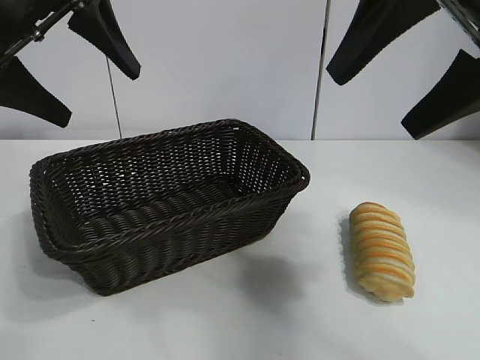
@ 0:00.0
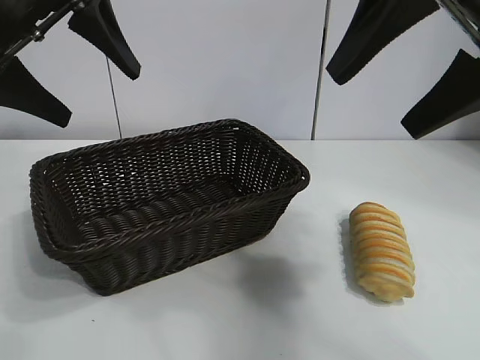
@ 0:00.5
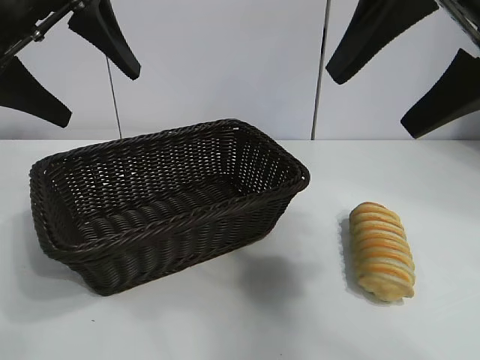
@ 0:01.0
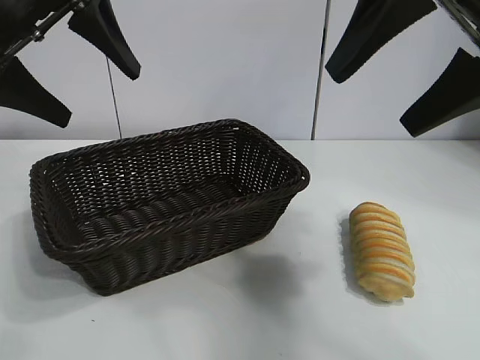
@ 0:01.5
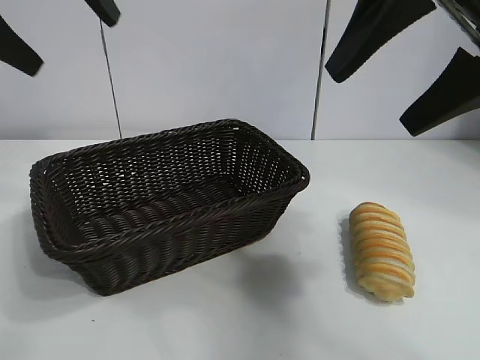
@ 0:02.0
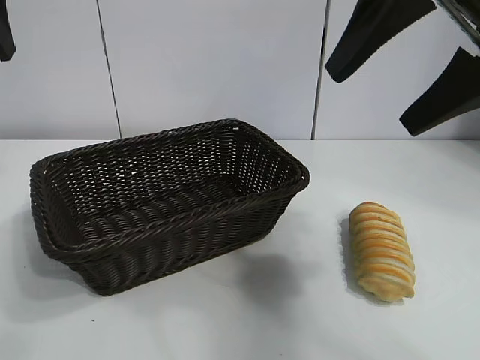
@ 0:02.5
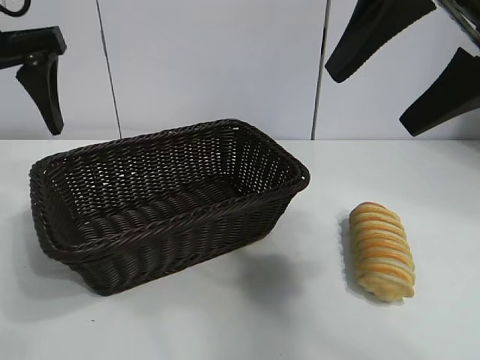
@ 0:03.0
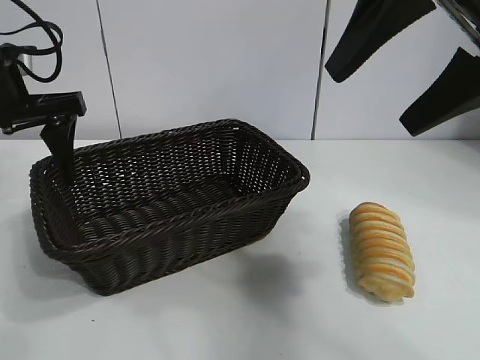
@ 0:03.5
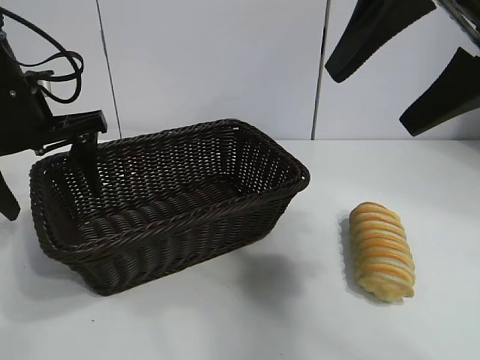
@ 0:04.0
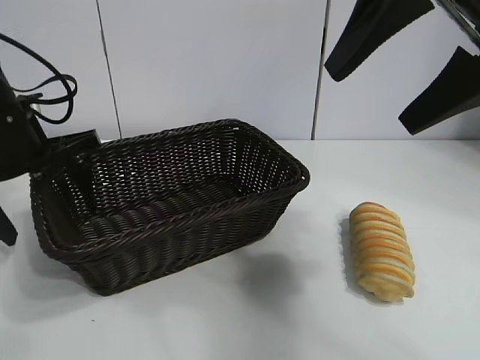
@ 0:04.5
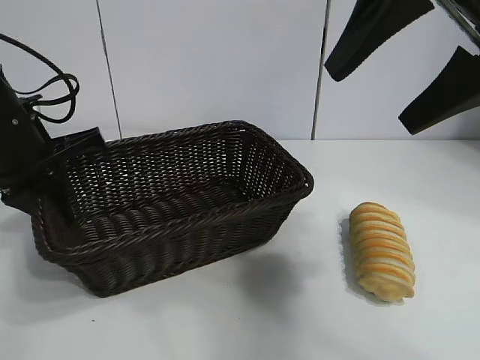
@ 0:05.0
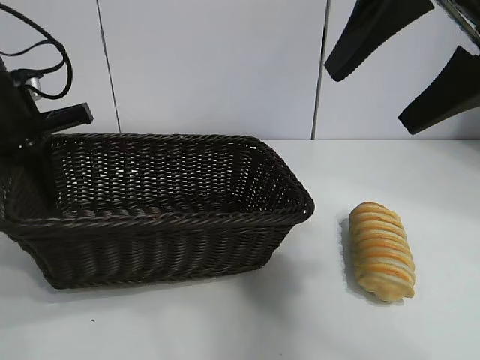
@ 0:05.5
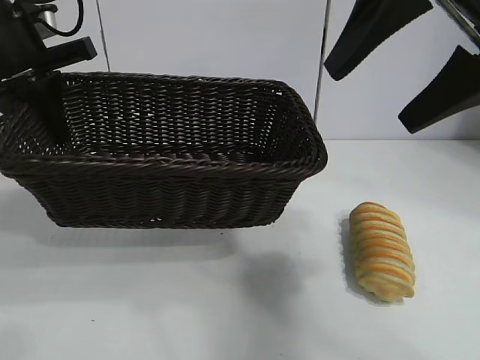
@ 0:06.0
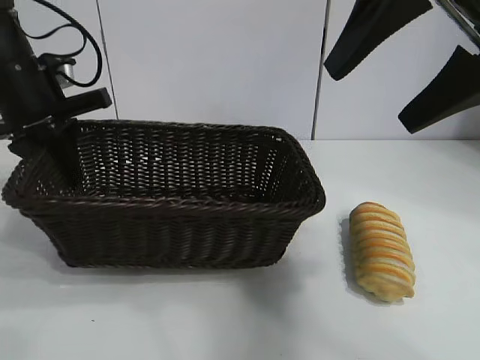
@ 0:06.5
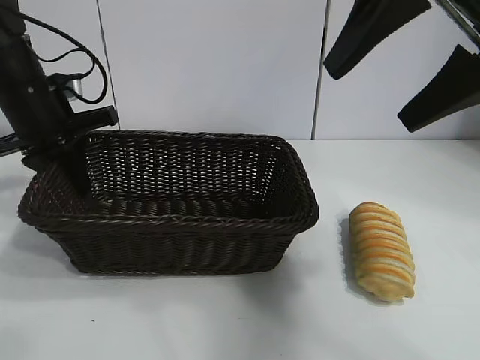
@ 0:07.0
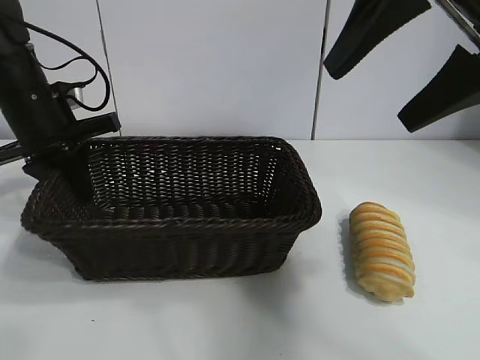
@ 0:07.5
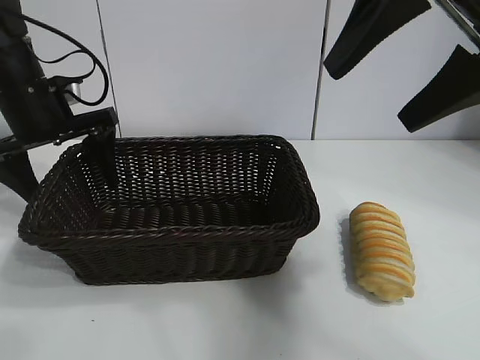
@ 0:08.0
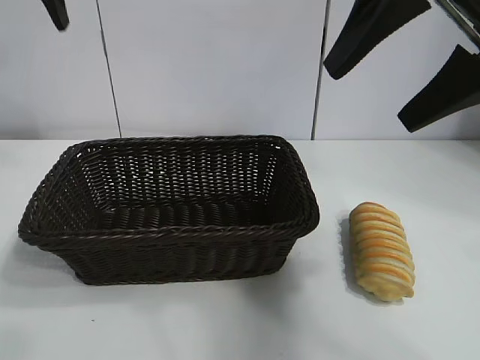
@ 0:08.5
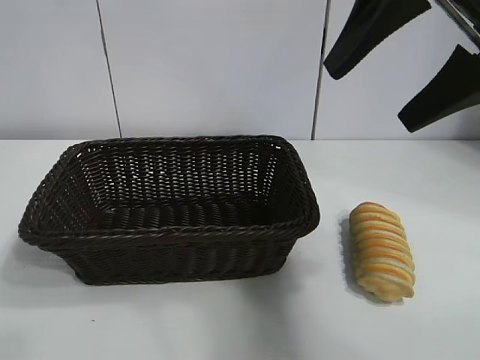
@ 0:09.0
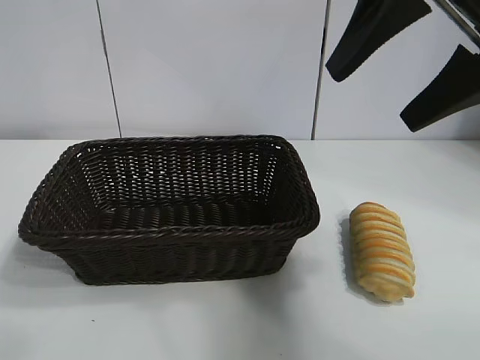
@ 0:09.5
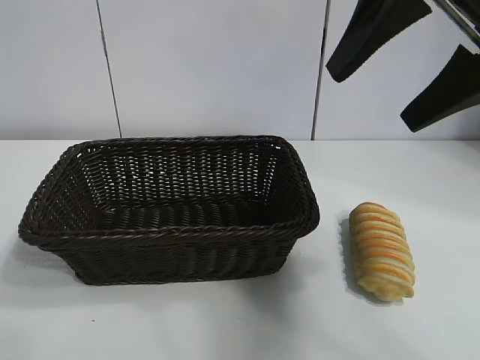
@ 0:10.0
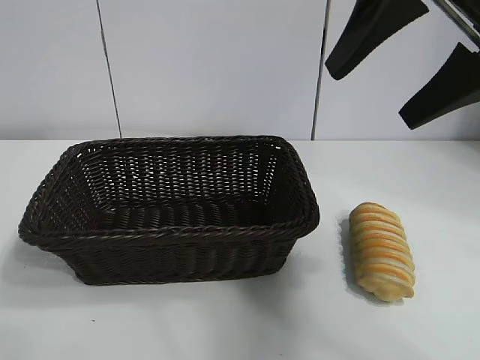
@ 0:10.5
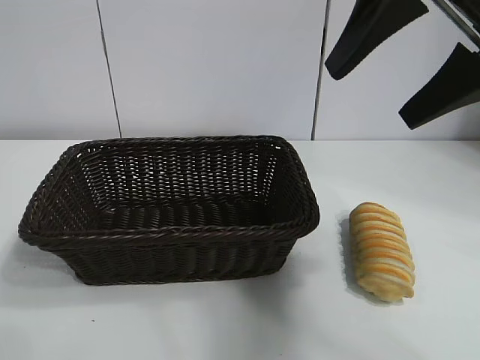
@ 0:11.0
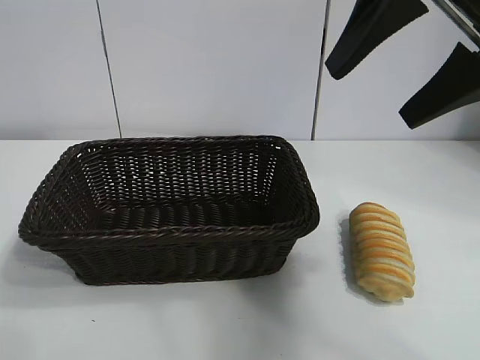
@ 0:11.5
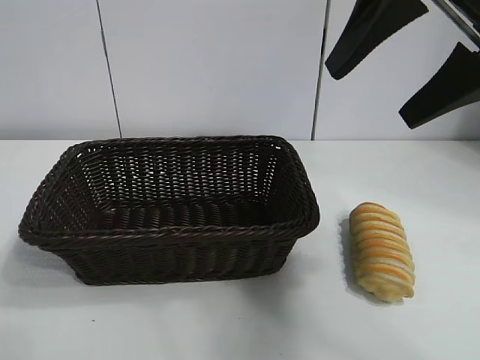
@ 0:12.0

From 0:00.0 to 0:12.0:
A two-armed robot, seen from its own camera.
Task of the whole recording: pick up the long bread and put it into the basket.
Step, from 0:02.0 to 0:04.5: Grasp the basket with the left gripper.
Step, from 0:05.0 to 0:07.5: Place the basket in the center of the table with the left gripper.

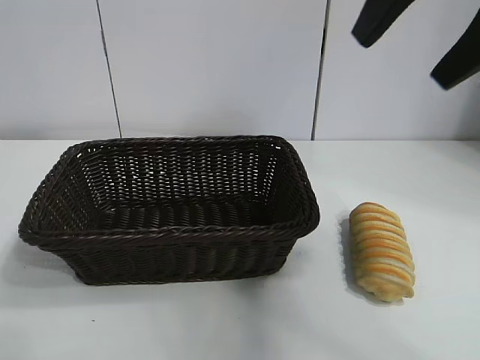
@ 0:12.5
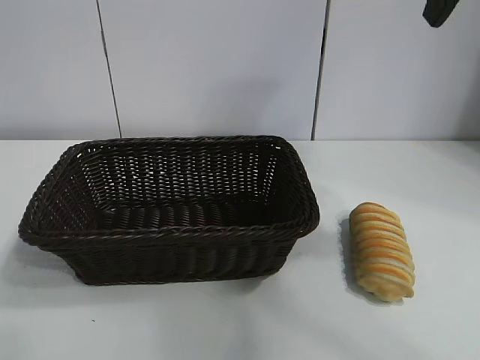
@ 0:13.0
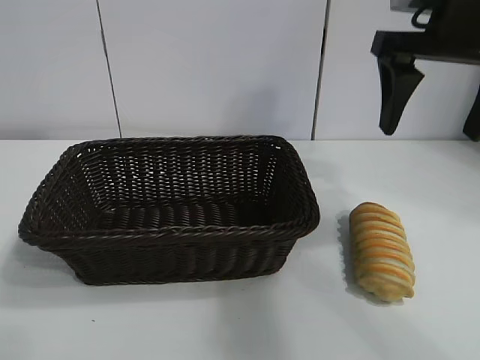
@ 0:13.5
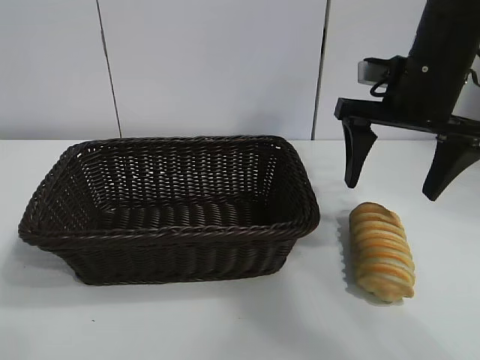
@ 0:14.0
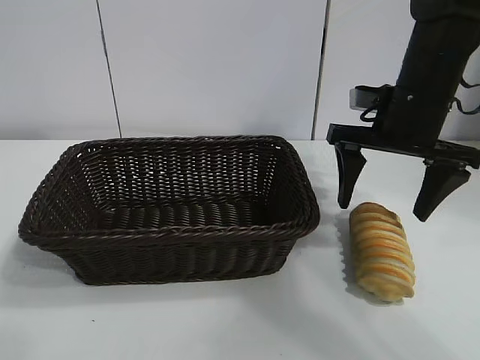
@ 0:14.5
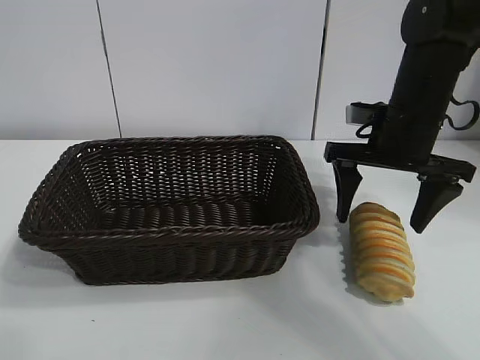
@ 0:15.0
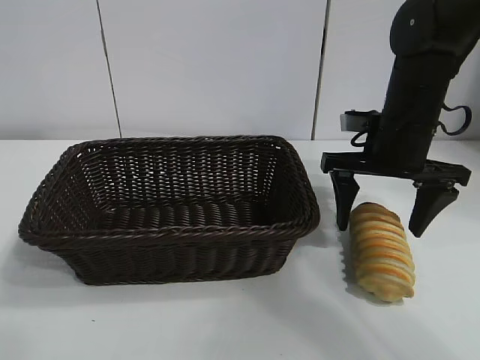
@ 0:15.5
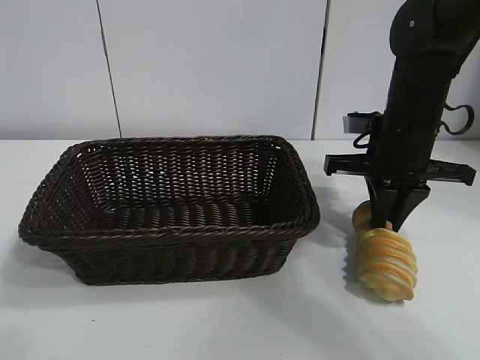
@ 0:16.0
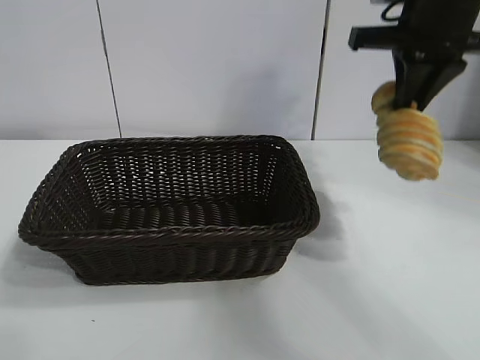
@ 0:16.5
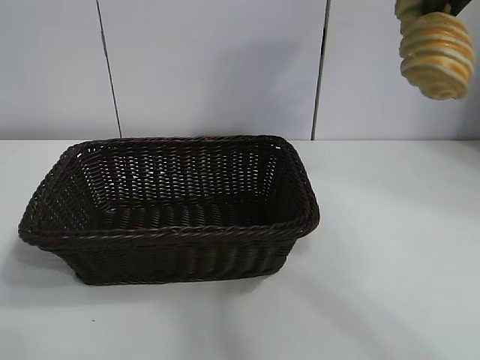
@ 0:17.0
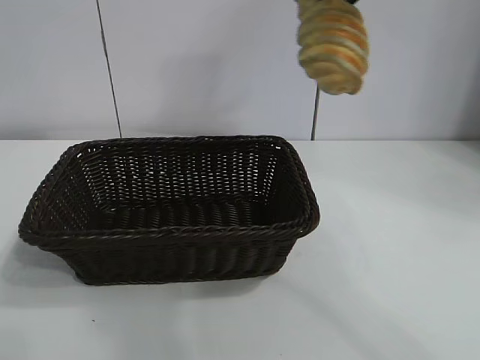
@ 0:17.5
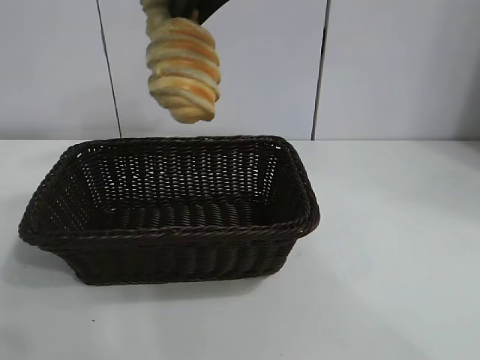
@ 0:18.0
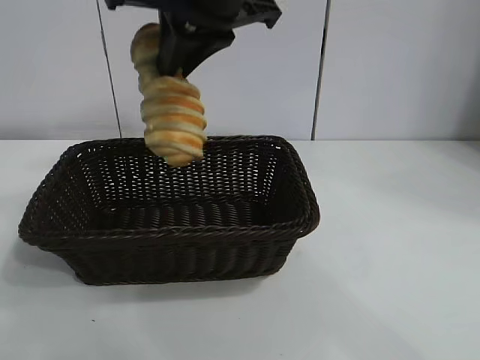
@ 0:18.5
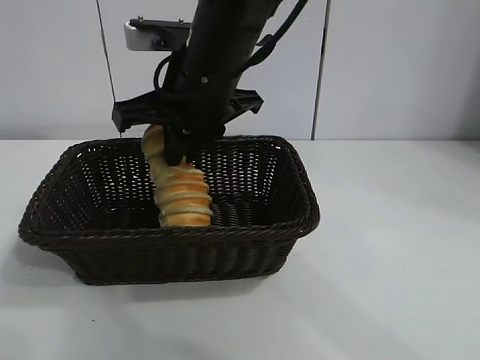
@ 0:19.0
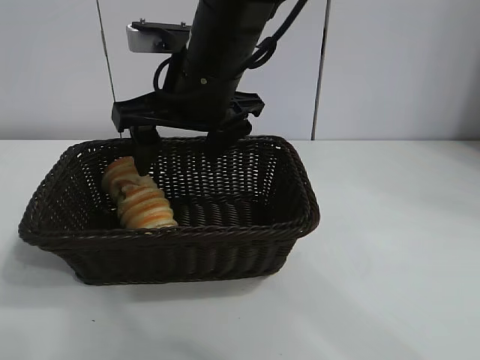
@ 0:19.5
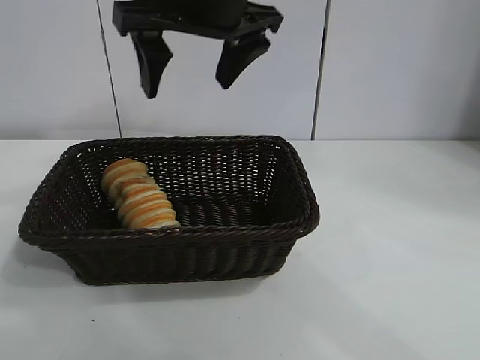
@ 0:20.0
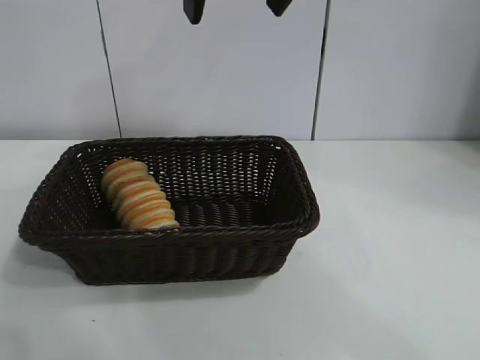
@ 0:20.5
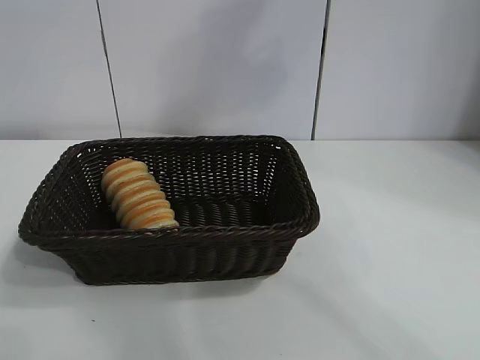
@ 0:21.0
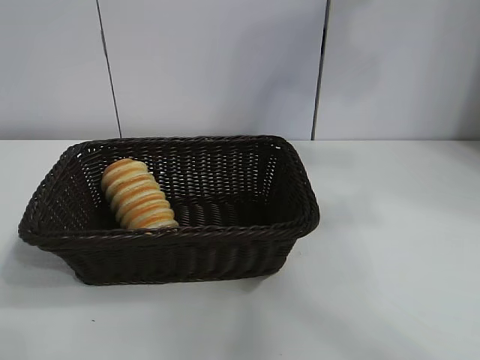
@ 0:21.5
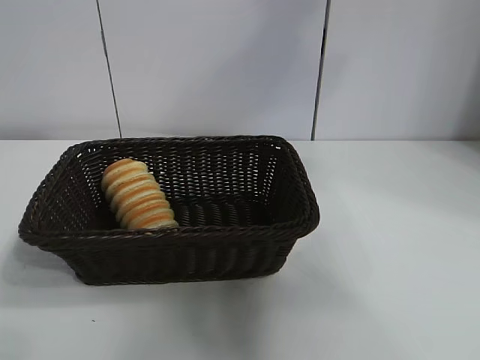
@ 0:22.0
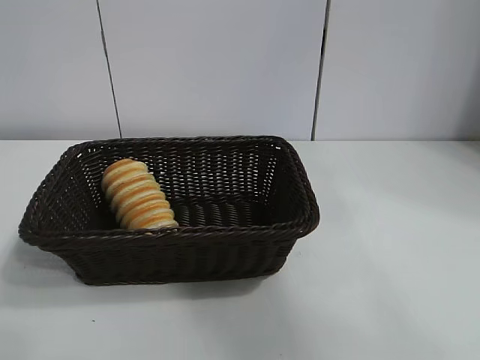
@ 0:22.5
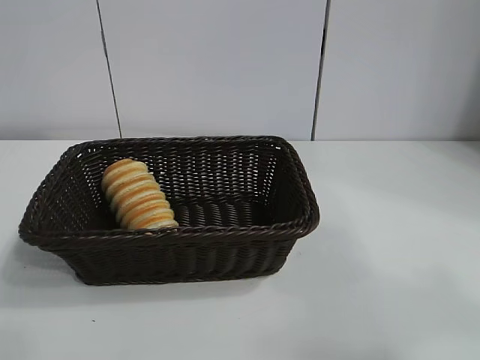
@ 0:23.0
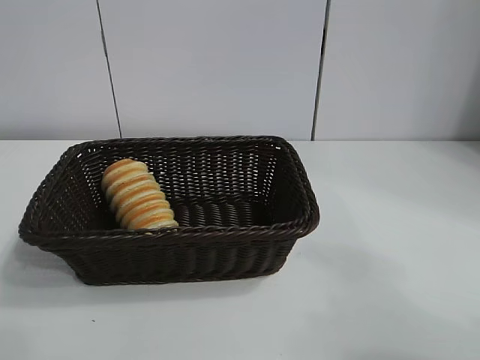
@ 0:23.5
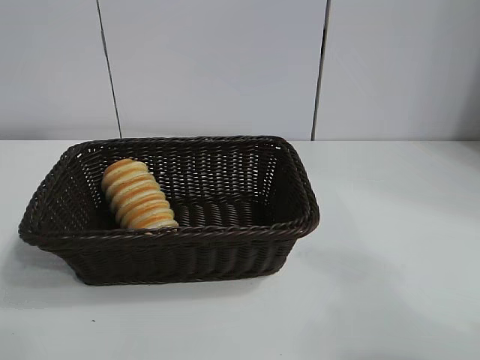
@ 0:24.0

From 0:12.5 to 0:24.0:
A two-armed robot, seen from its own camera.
Task of the whole recording: pick up the long bread and put it into the basket.
Step, from 0:12.5 to 0:15.5: Grasp the long bread with right gripper.
Step, from 0:16.0 to 0:19.5: Place the long bread in the basket with right gripper.

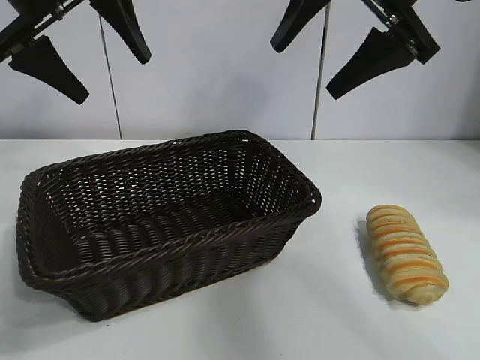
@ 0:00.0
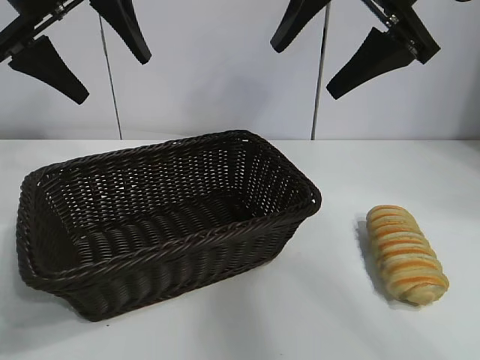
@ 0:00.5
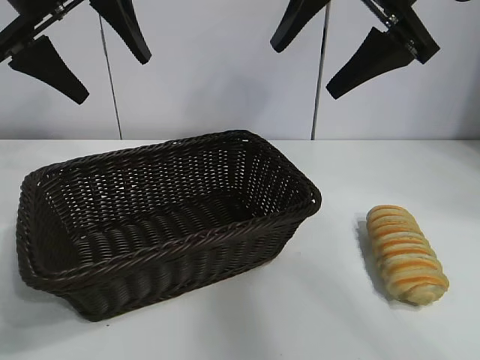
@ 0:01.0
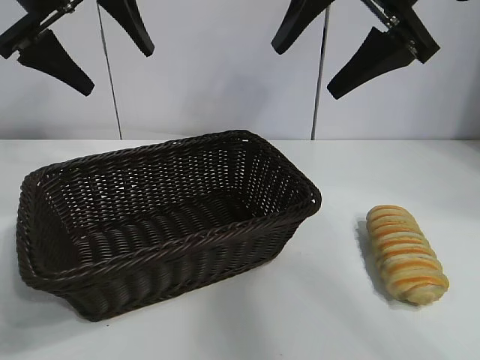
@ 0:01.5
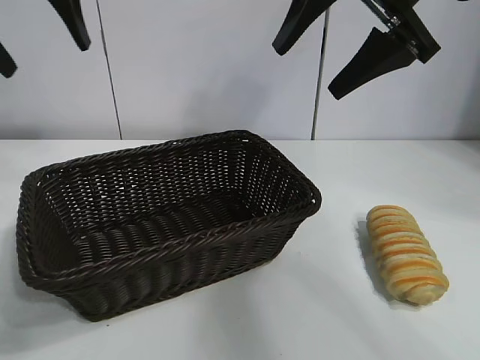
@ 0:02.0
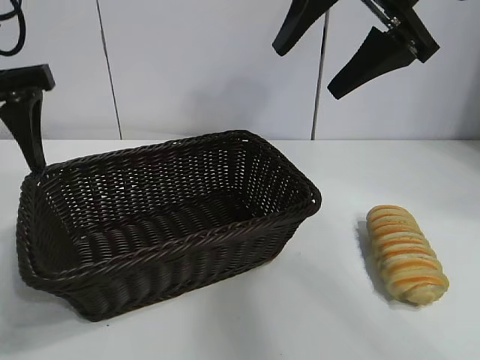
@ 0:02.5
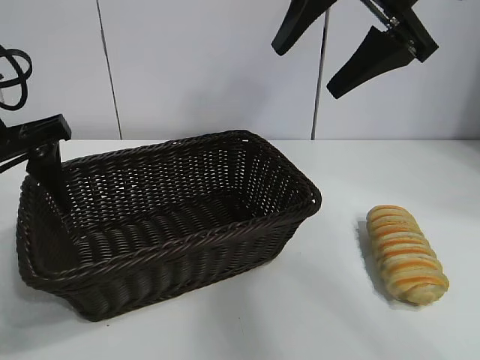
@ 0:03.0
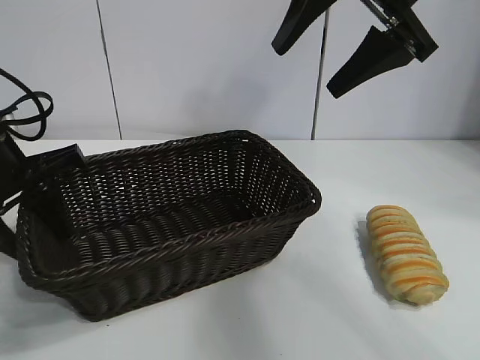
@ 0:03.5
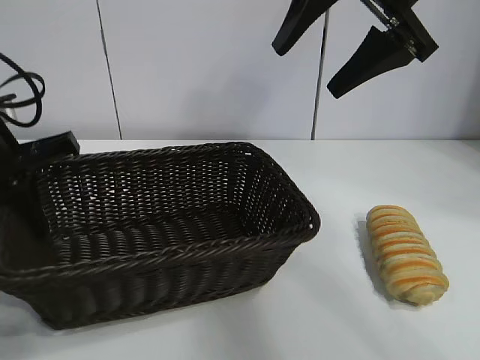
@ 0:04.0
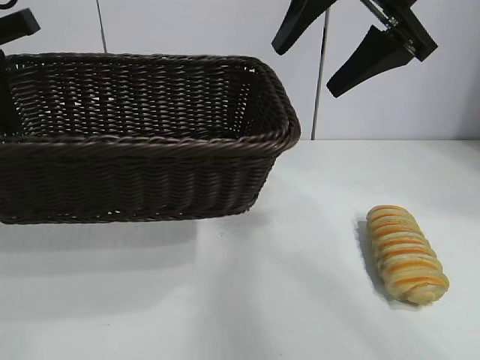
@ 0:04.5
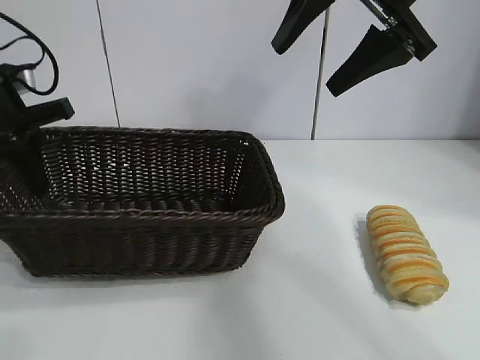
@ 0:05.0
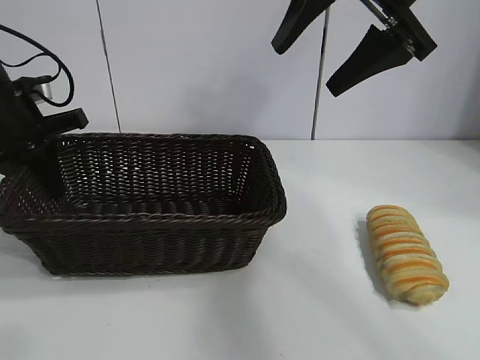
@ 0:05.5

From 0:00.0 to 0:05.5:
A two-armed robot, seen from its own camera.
Task of the whole recording: pick up the long bread and put it into the basket.
Step, from 0:01.5 to 0:03.5: Grasp the basket with the left gripper.